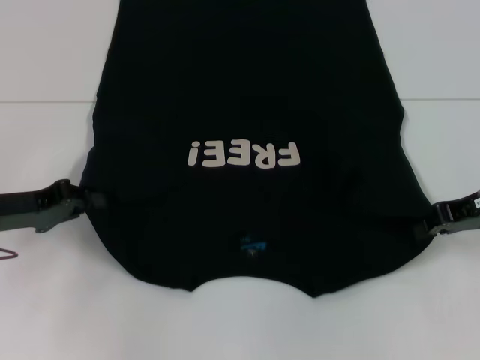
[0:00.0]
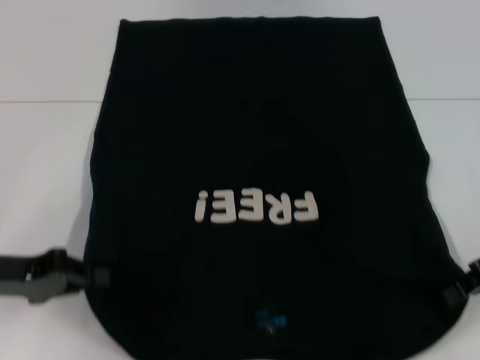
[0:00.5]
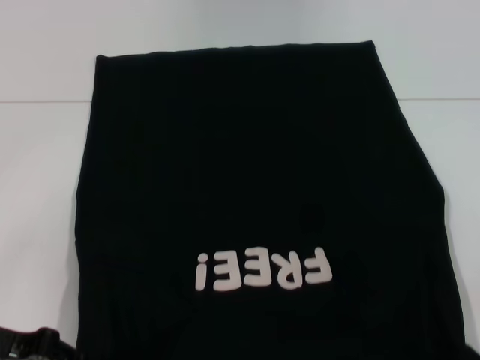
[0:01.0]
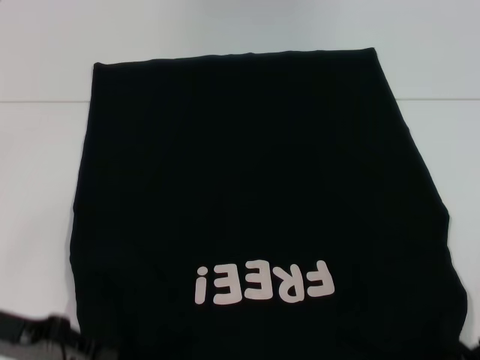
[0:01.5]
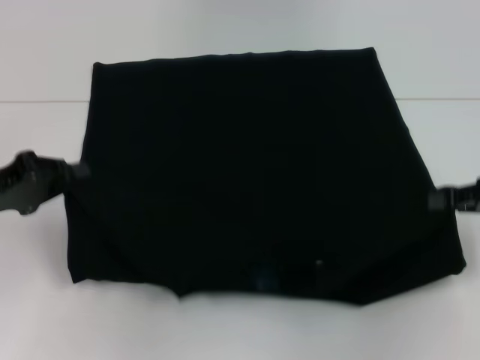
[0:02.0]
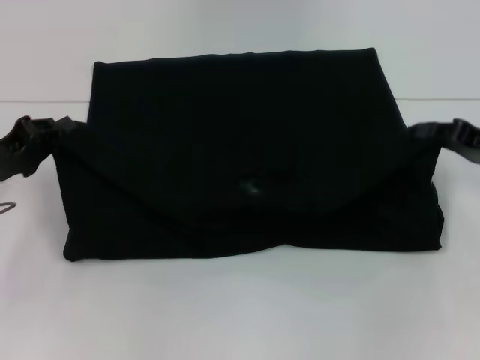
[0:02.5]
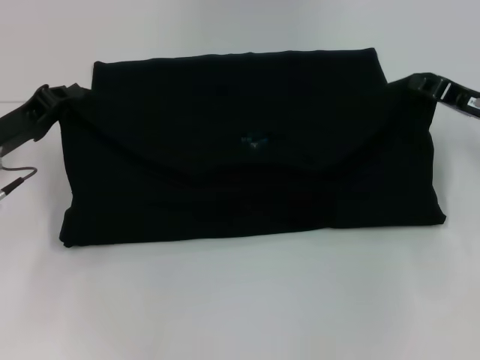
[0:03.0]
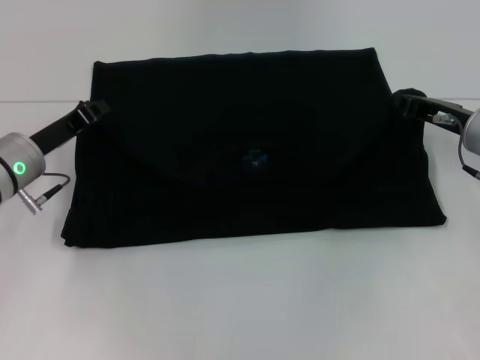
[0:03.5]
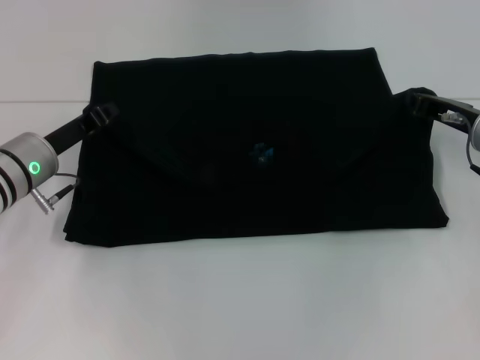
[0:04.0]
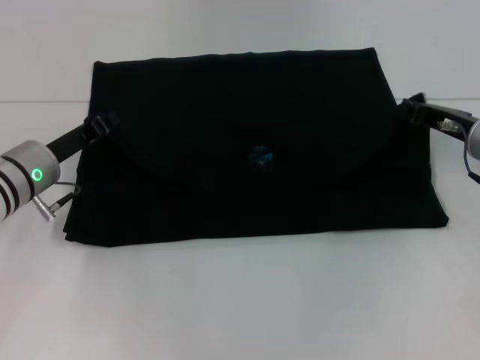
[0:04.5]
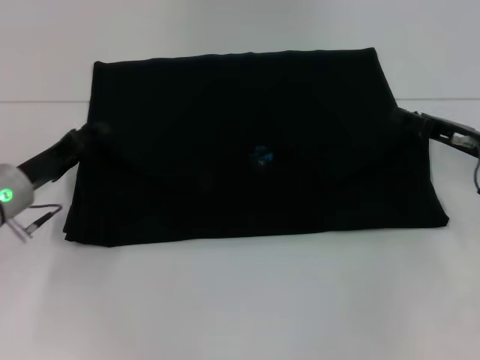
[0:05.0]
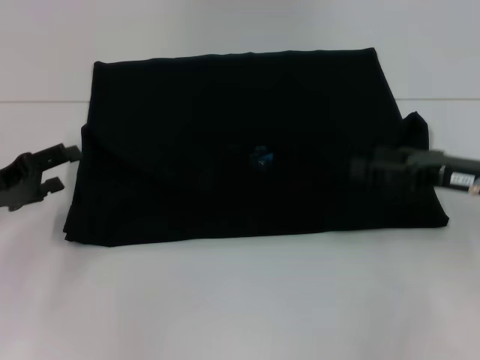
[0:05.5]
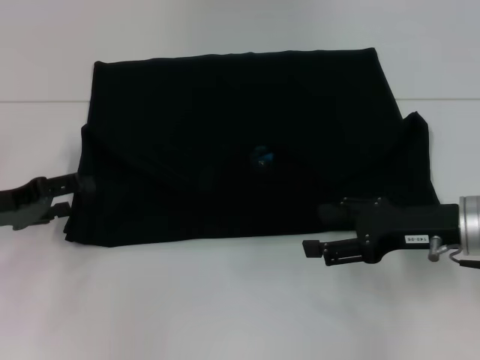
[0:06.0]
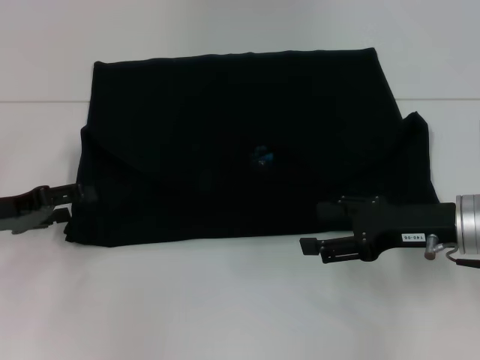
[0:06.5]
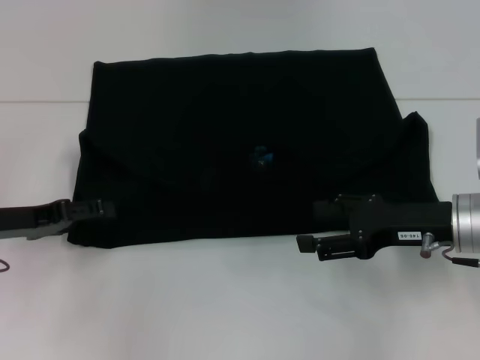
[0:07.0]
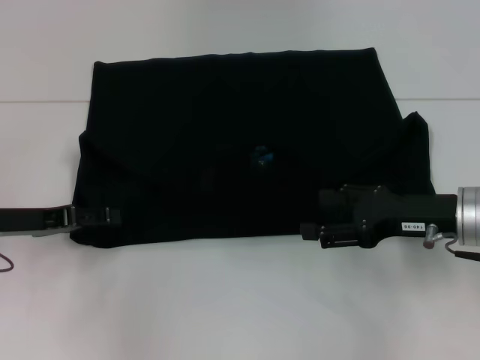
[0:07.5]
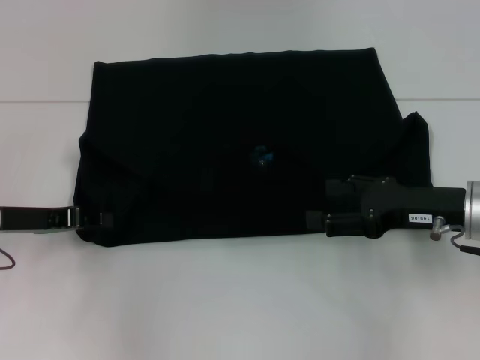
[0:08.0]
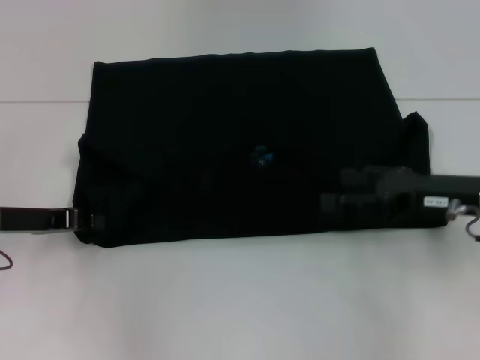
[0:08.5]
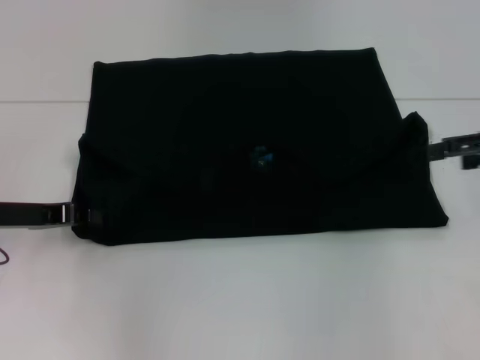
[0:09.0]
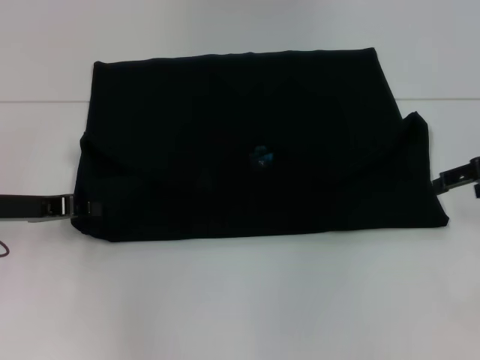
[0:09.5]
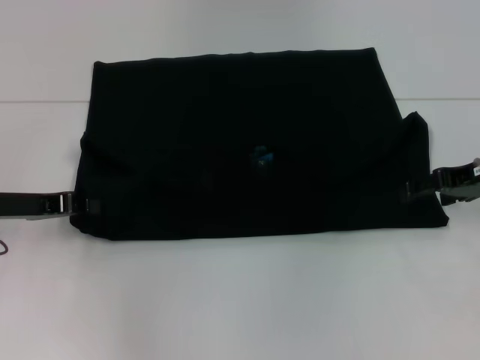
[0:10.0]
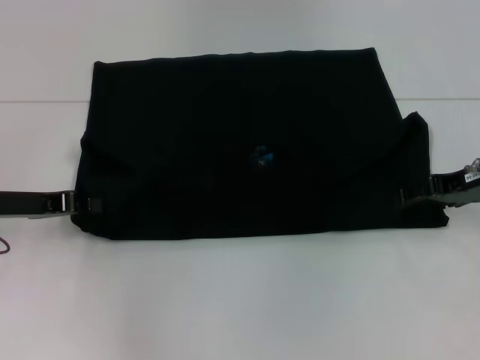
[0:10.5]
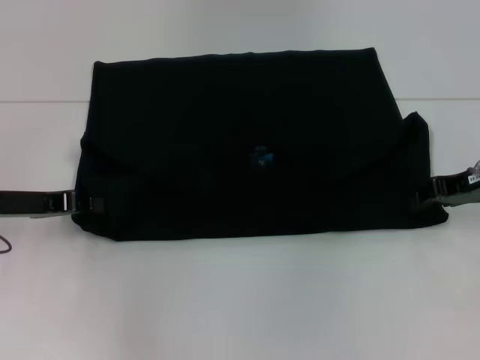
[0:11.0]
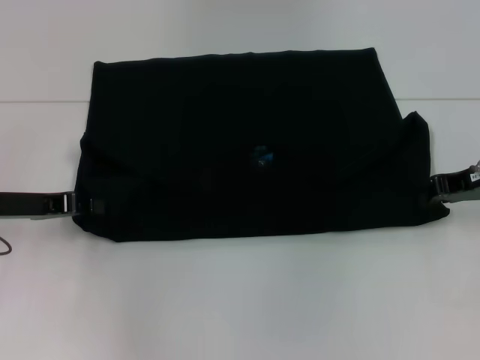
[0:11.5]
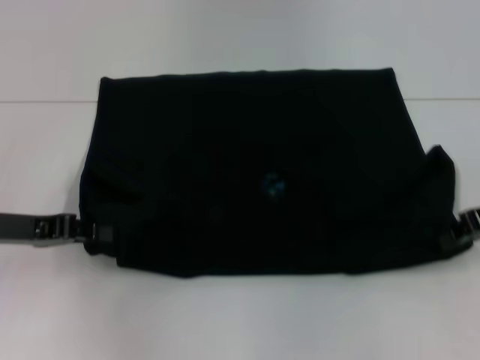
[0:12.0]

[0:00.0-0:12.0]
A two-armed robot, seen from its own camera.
Step, 0:00.0 to 0:05.0: Fold the clothes with your left hand.
Step, 0:00.0 to 0:05.0: Fold the clothes with your right hand.
0:00.0 to 0:02.0: The right gripper shifts roughly 5 cm to the right, while the left gripper reaches some 10 cm backward, then returns.
0:02.0 to 0:04.0: The right gripper travels forward and to the left by approximately 10 cm; the left gripper moves to the right and forward, roughly 10 cm.
0:04.0 to 0:06.0: The left gripper goes about 10 cm to the left and backward, and opens up. The right gripper travels backward by some 10 cm, and opens up.
0:06.0 to 0:08.0: The left gripper closes.
0:08.0 to 0:10.0: The left gripper closes up. The right gripper is displaced forward and to the right by about 10 cm.
0:10.0 to 0:12.0: The right gripper closes its fingers.

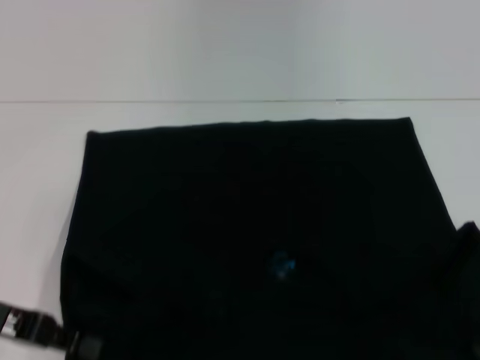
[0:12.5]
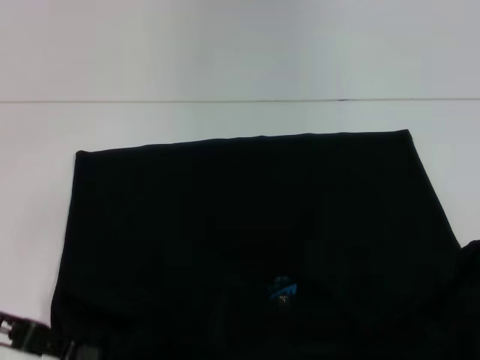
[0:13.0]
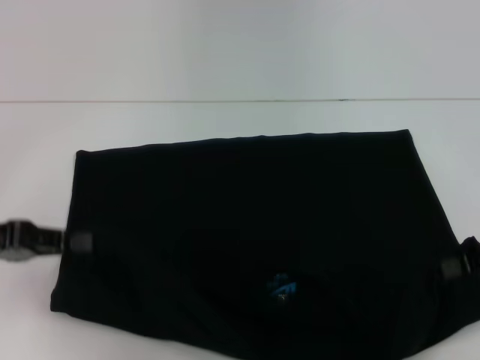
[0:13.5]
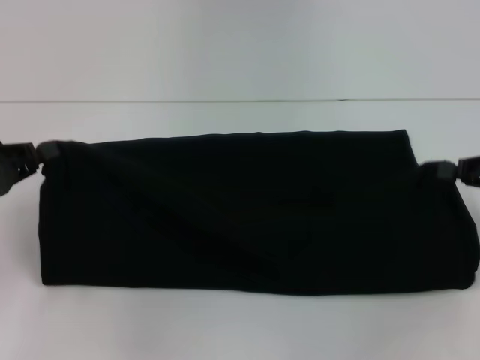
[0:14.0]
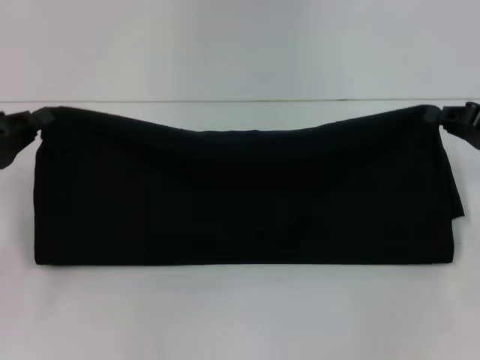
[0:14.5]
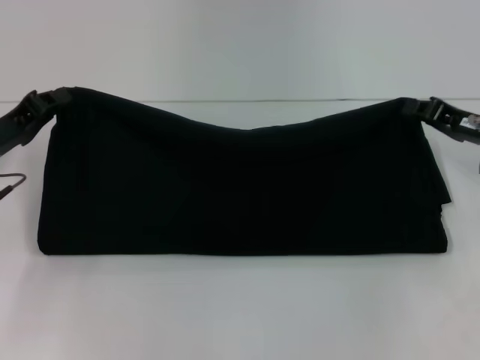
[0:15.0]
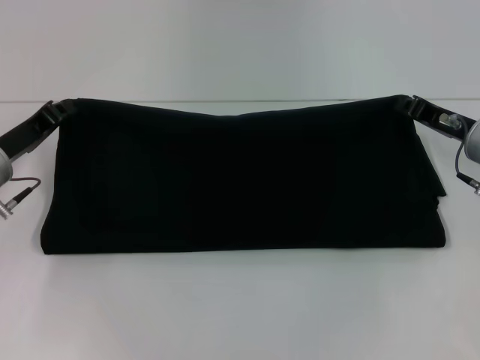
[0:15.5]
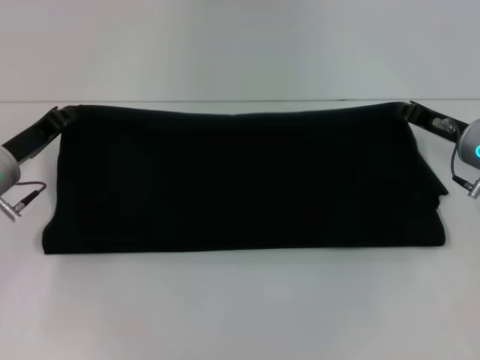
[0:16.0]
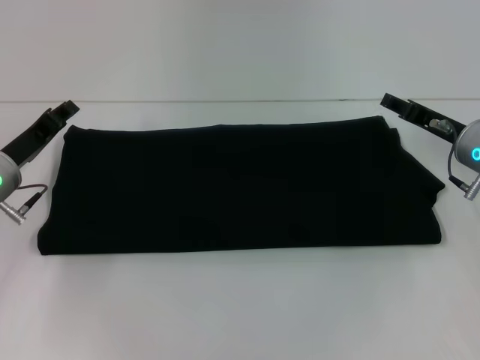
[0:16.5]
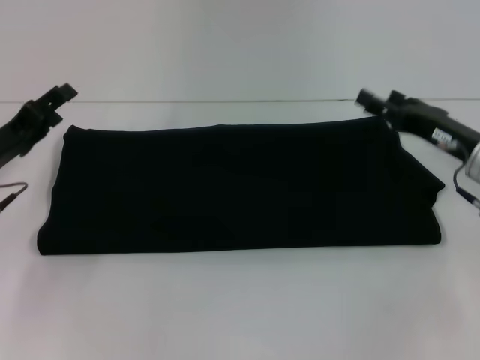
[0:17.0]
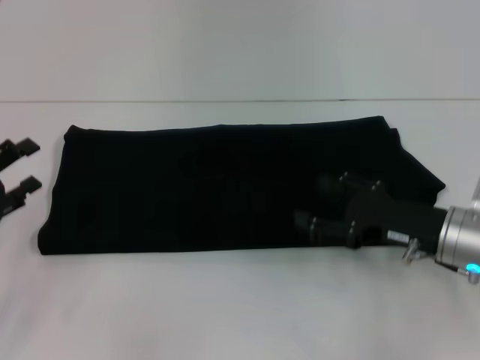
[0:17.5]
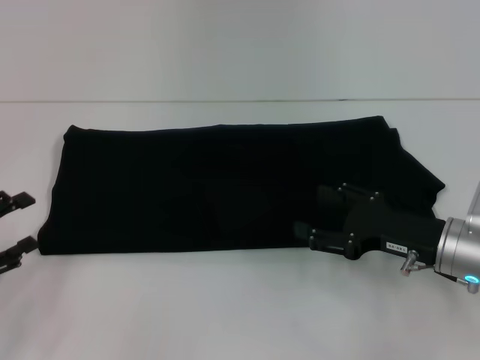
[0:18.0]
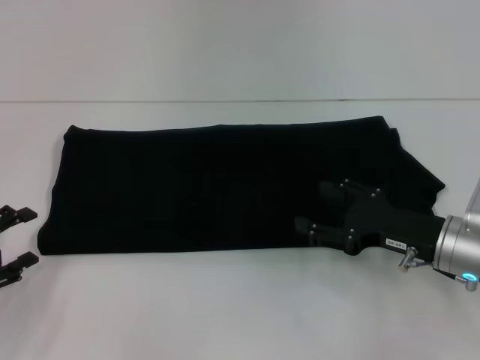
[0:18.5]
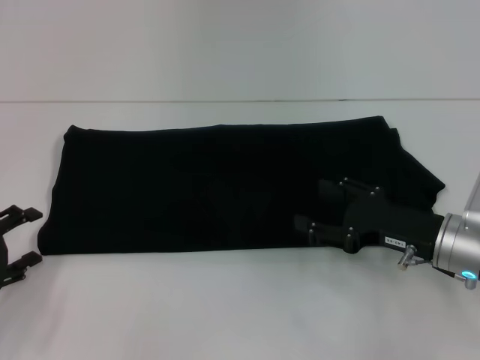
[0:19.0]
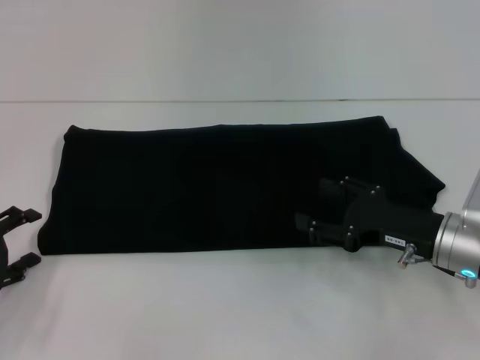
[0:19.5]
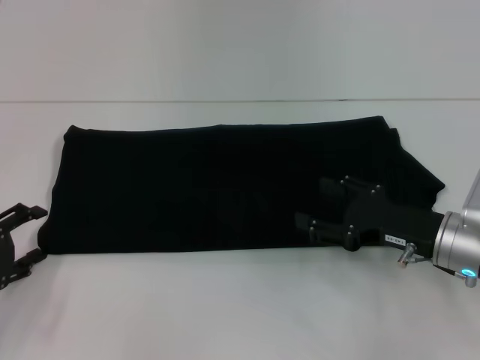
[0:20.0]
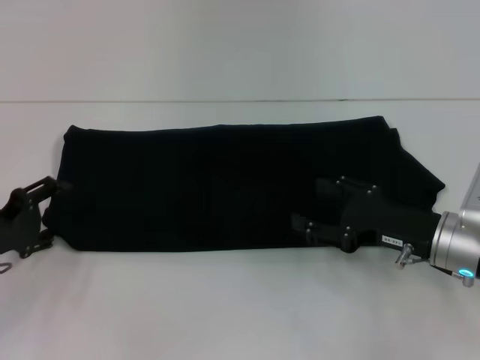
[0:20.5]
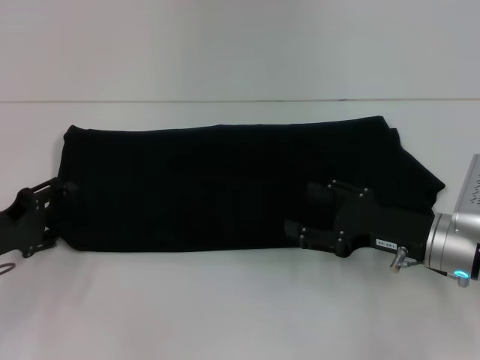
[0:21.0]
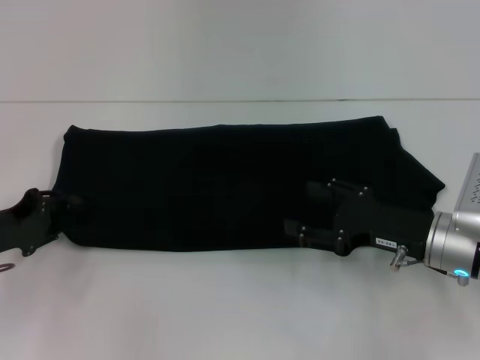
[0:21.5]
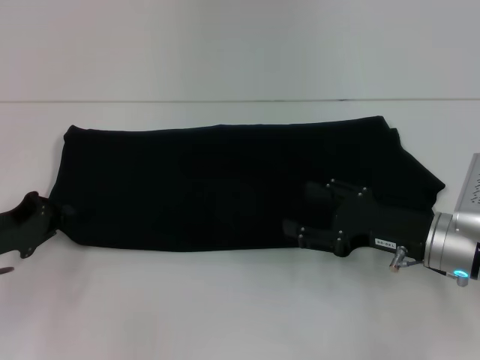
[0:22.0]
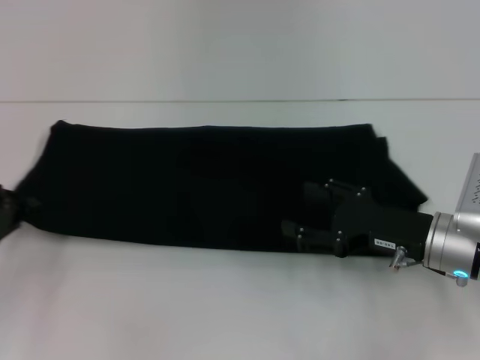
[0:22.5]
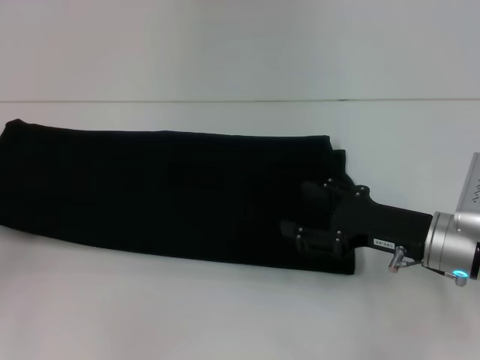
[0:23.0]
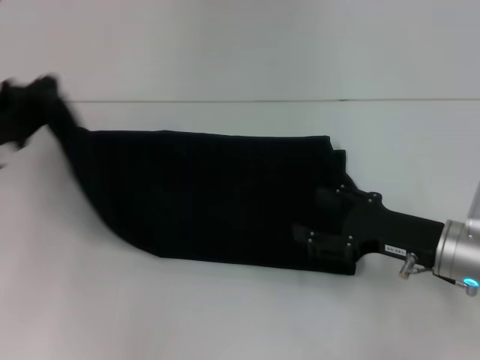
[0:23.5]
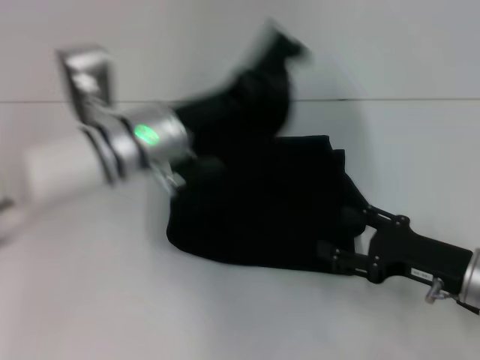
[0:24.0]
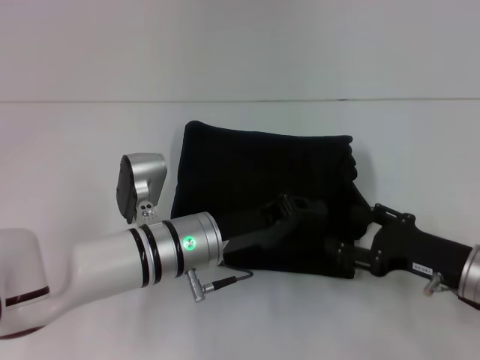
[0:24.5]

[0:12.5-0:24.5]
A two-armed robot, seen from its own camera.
Step, 0:13.5 to 0:16.0: Fold the clothes with your right hand.
0:12.5 to 0:14.5: The two grippers go about 5 cm forward.
0:14.5 to 0:16.5: The left gripper goes approximately 5 cm to the right, while the right gripper goes some 5 cm to the left, and opens its fingers.
0:16.5 to 0:18.5: The right gripper is displaced backward by about 10 cm, and opens; the left gripper heads backward and to the left, covering approximately 15 cm, and opens its fingers.
0:18.5 to 0:20.5: The left gripper goes some 5 cm forward.
0:20.5 to 0:22.5: The left gripper closes.
0:22.5 to 0:24.5: The right gripper shifts by about 5 cm, while the left gripper moves to the right, roughly 25 cm.

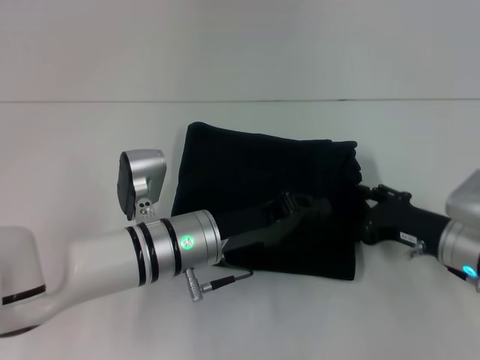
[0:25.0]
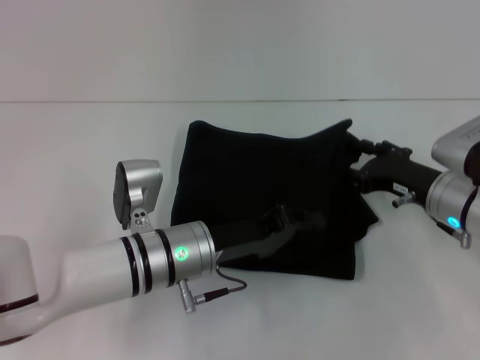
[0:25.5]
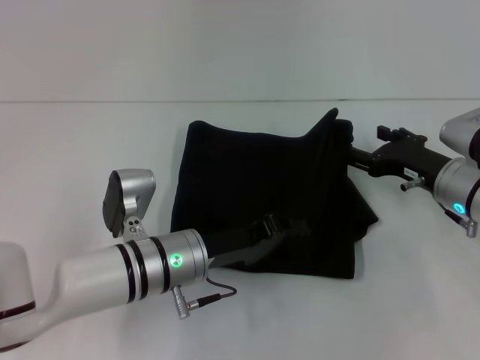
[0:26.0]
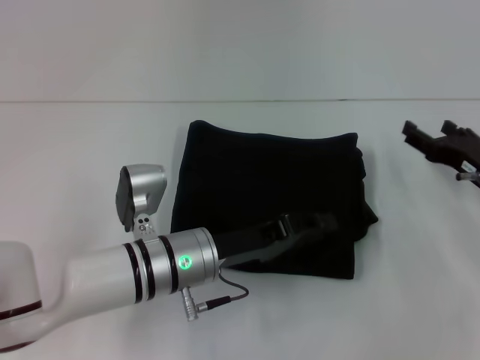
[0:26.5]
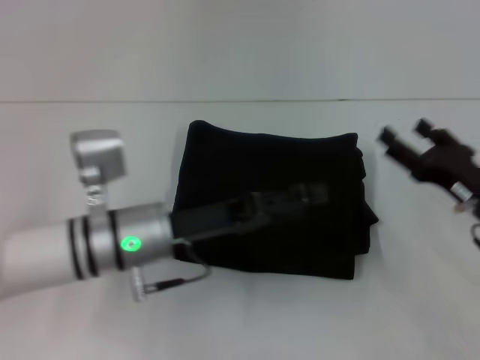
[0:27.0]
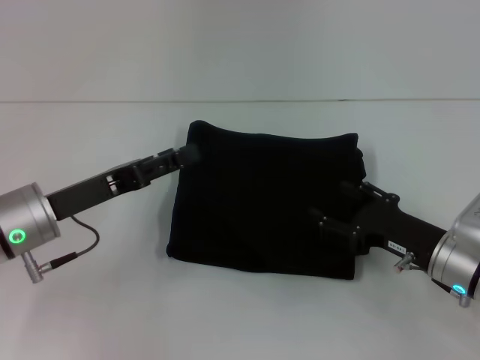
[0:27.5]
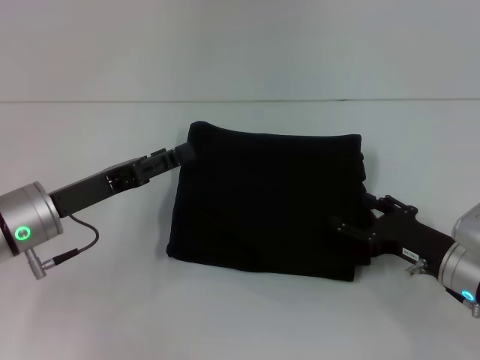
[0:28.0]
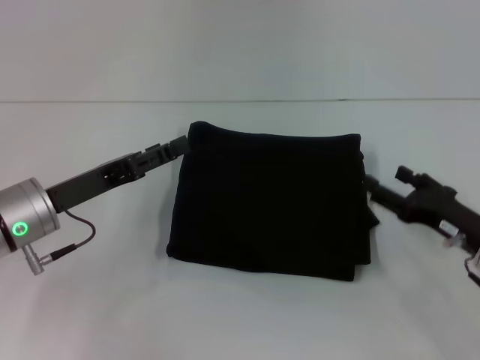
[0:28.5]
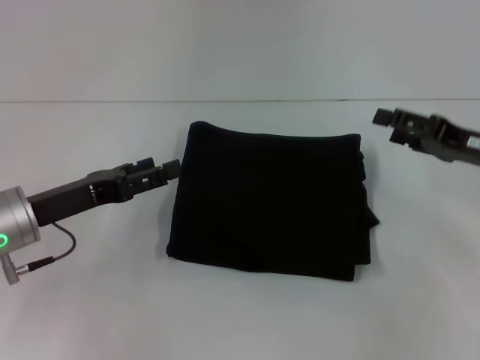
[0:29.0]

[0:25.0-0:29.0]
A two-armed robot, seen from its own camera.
0:25.0 to 0:27.0: The left gripper ends up approximately 5 cm from where it was, and opens its fingers.
0:27.0 to 0:29.0: The left gripper heads to the left, covering roughly 10 cm; the right gripper travels upward and forward by roughly 10 cm.
